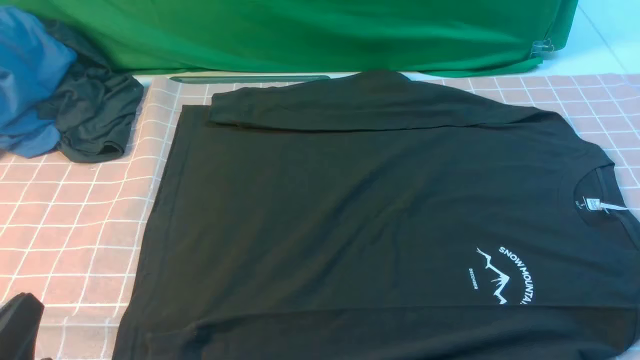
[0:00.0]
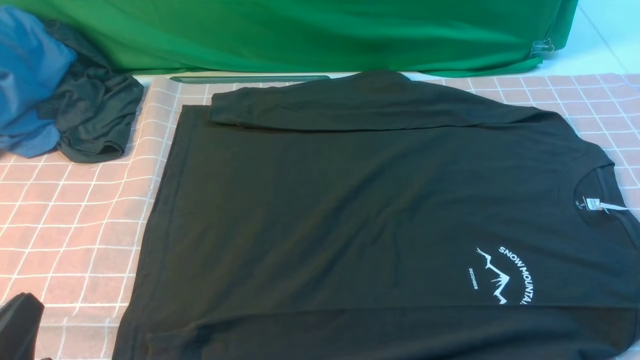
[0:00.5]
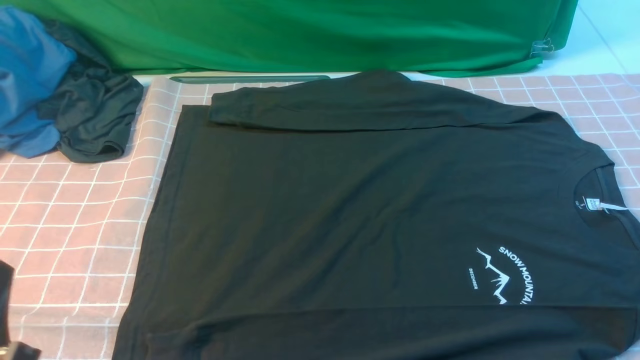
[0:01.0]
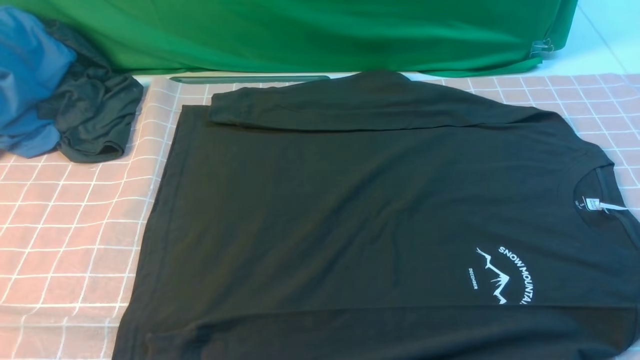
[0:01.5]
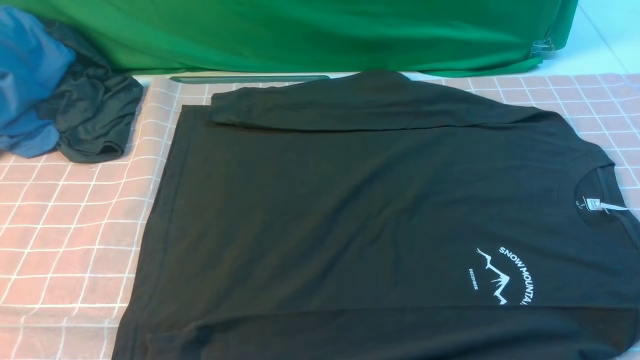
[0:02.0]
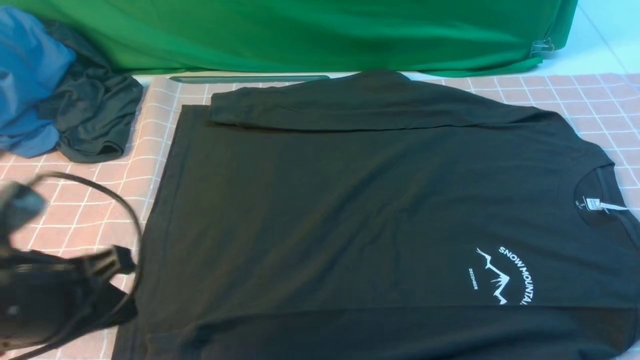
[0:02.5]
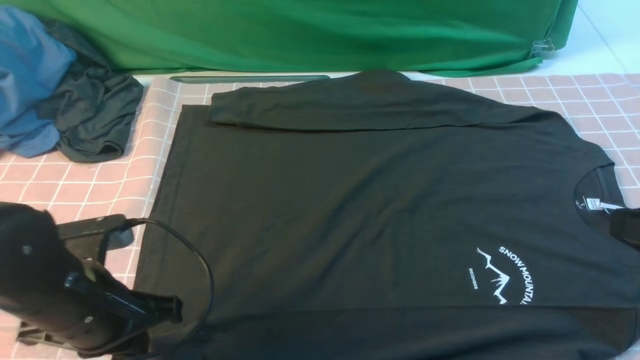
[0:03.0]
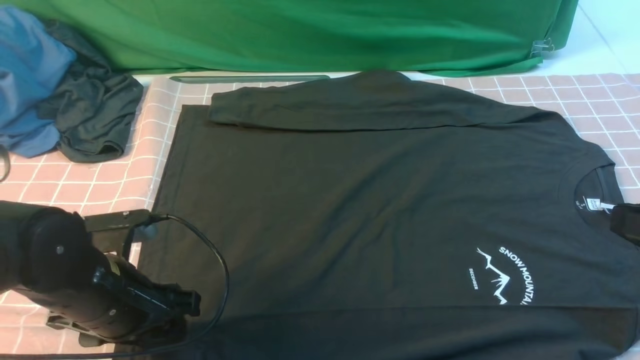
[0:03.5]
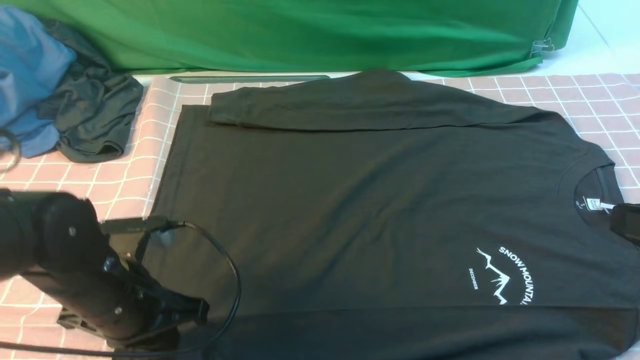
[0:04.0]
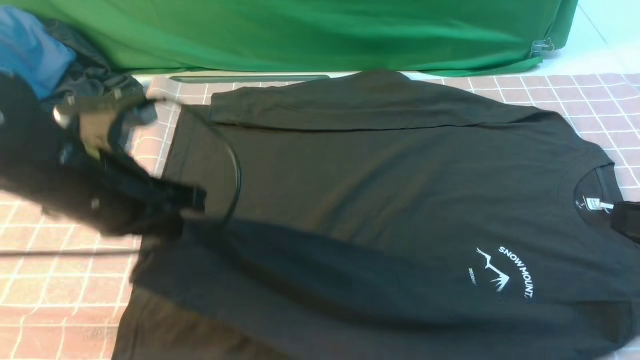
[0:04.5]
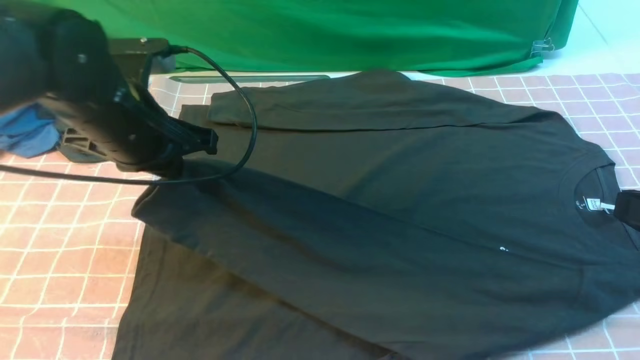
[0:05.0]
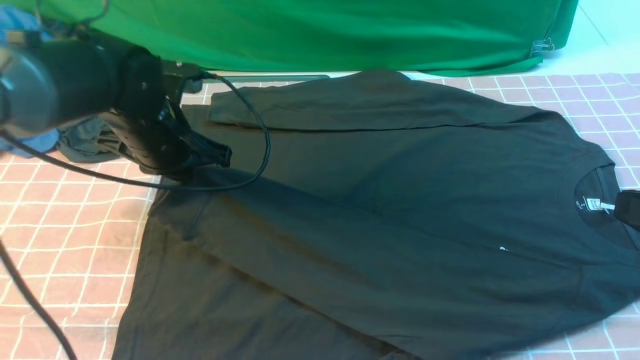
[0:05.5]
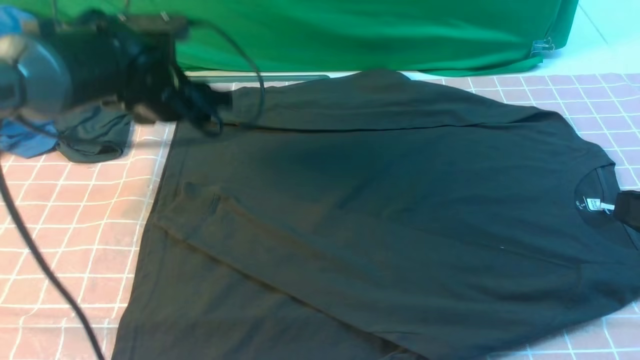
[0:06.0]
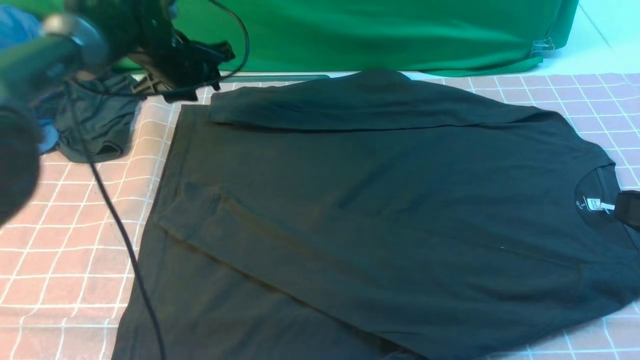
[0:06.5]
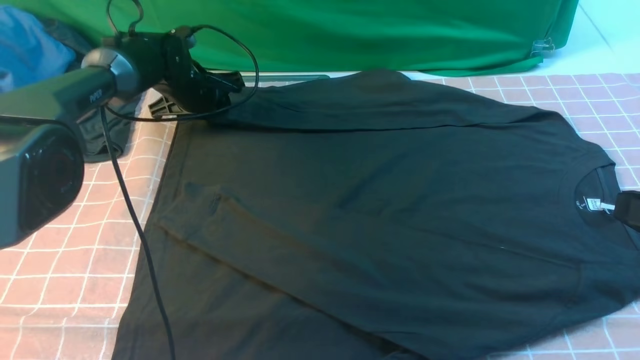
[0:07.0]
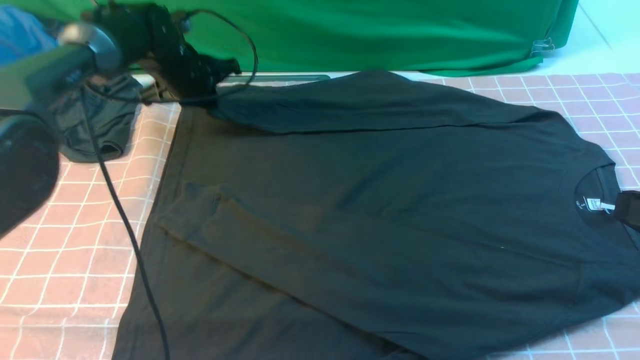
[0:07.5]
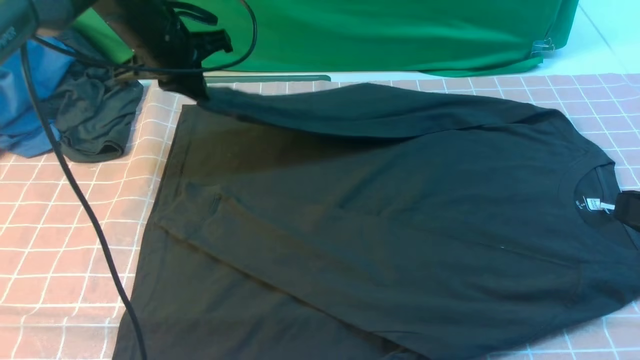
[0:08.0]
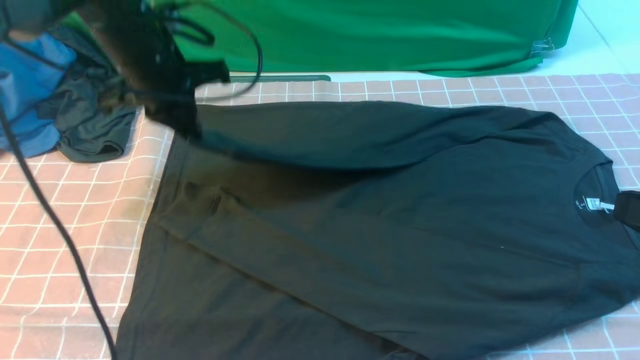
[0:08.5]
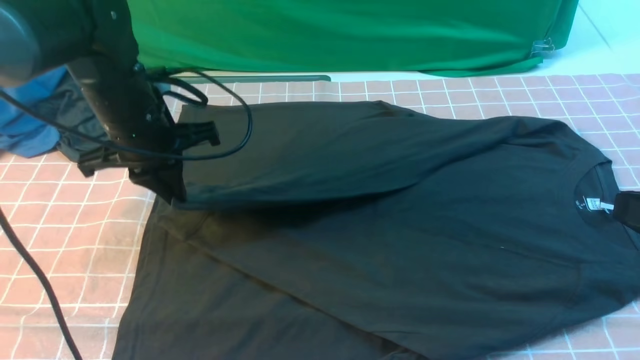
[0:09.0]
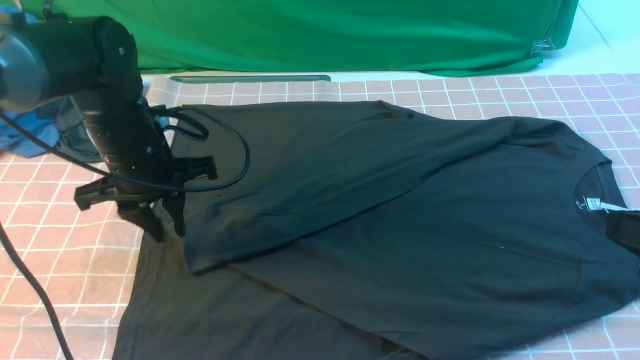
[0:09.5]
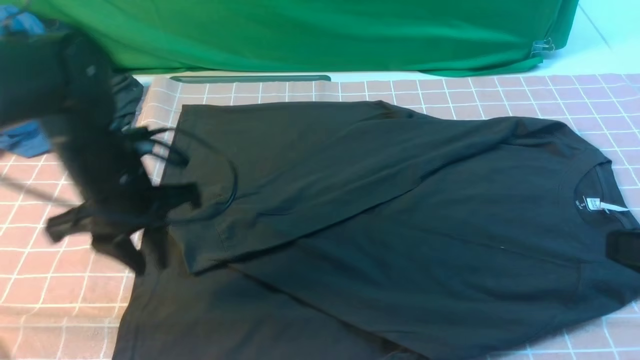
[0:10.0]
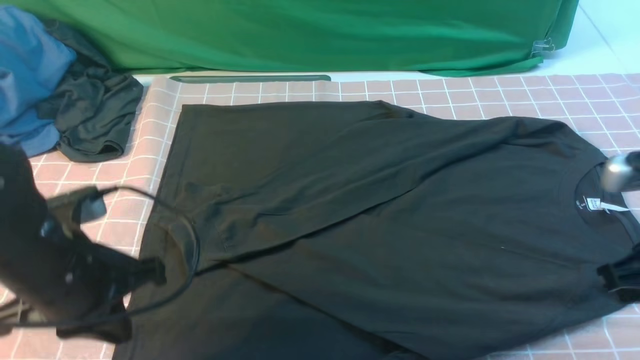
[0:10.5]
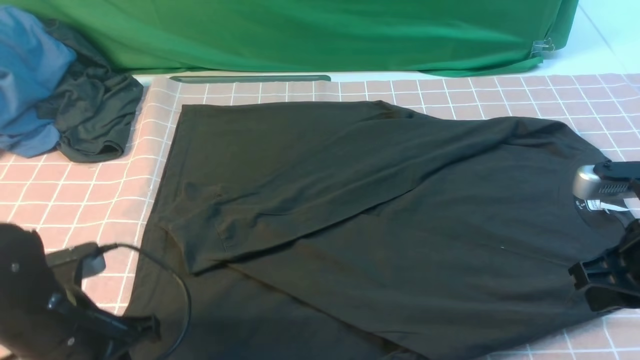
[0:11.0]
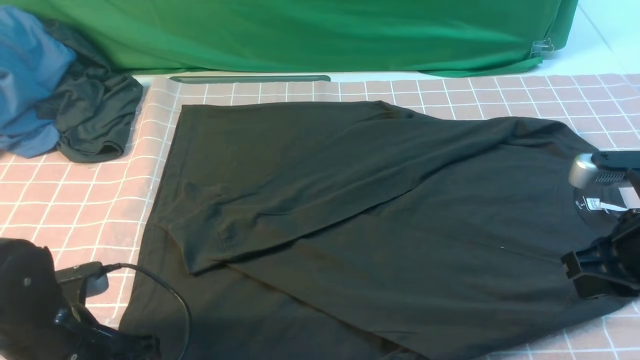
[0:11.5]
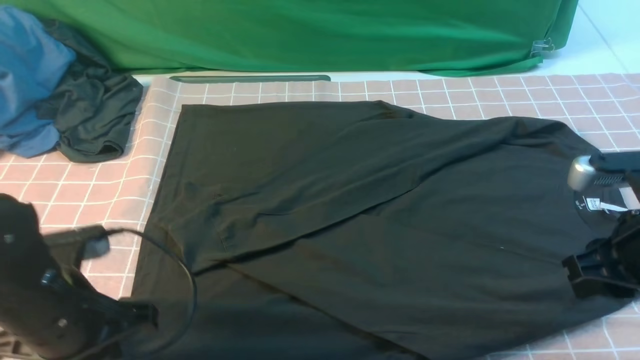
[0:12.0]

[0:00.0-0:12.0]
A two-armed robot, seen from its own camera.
Step, 0:00.0 to 0:03.5: use the left arm to clamp the cuff closest to it.
Step, 0:04.0 to 0:05.5: use the left arm to drag and place the cuff at the centered position on the left edge of the fabric.
Step, 0:06.0 to 0:07.0: use the left arm to clamp the cuff farthest from it.
Step, 0:07.5 to 0:09.0: use the left arm to drag and drop the cuff onto the cuff closest to the left arm.
0:00.0 to 0:02.0: The left gripper goes approximately 10 cm upward.
0:02.0 to 0:04.0: The left gripper goes approximately 20 cm forward and downward, and opens, then closes once more, while the right gripper heads upward and forward, covering about 10 cm.
0:04.0 to 0:06.0: The left gripper is displaced forward by some 20 cm, and opens.
0:06.0 to 0:08.0: The left gripper moves some 10 cm downward and comes back, and closes its fingers.
0:08.0 to 0:10.0: The left gripper goes approximately 15 cm backward, and opens up.
0:10.0 to 0:12.0: The left gripper heads backward, covering about 10 cm, and opens, then closes once more; the right gripper shifts about 10 cm forward and downward, and opens.

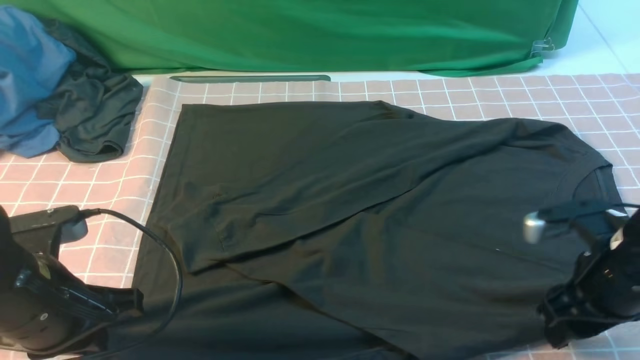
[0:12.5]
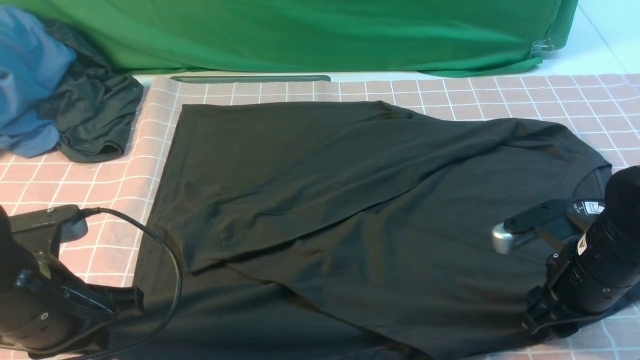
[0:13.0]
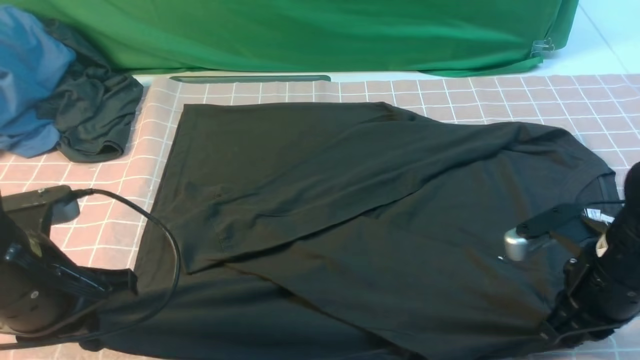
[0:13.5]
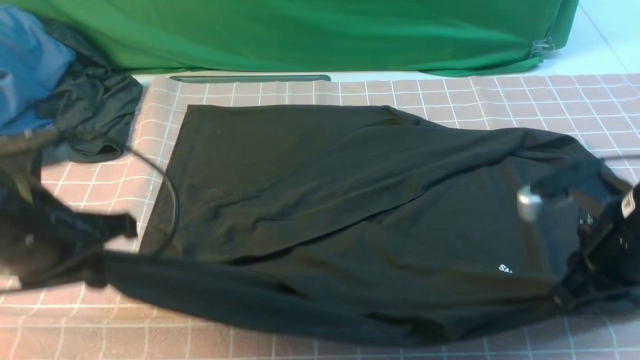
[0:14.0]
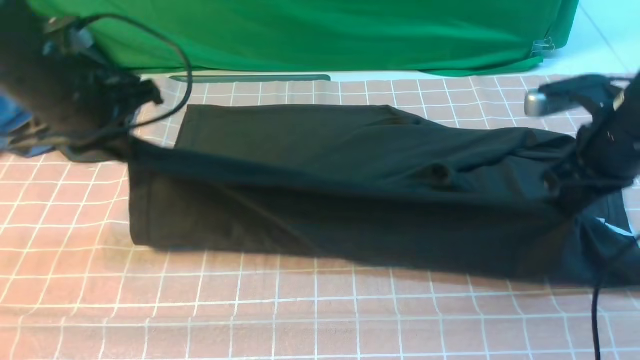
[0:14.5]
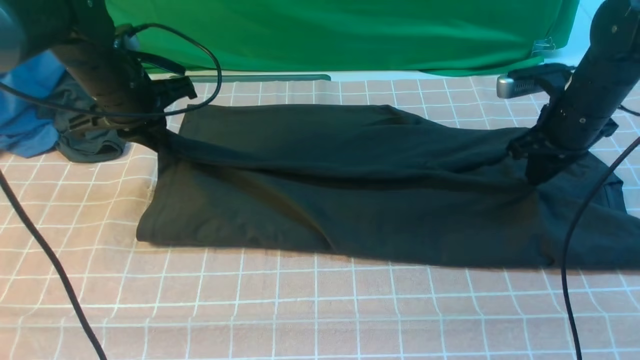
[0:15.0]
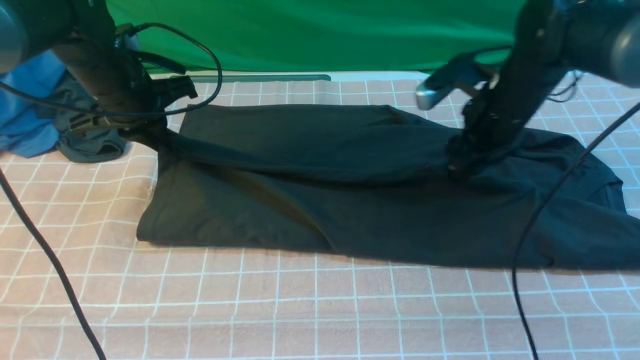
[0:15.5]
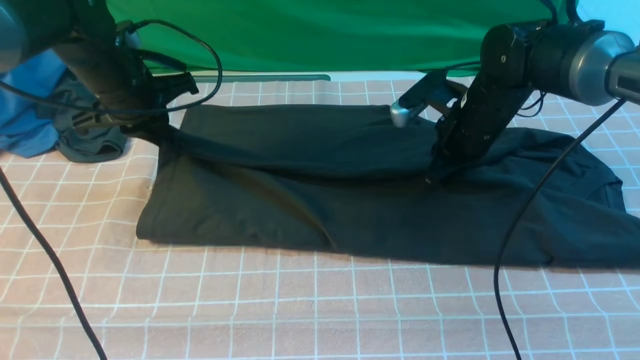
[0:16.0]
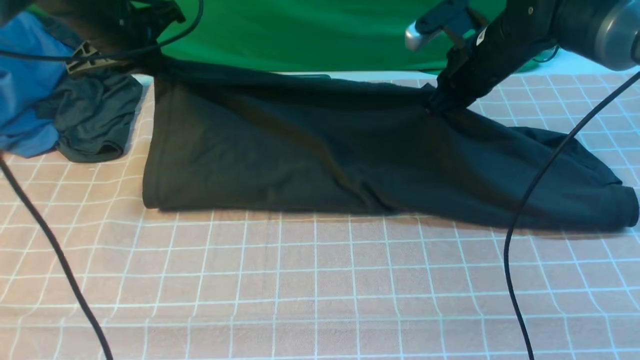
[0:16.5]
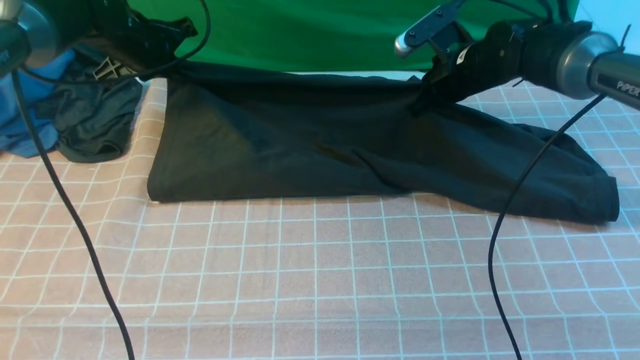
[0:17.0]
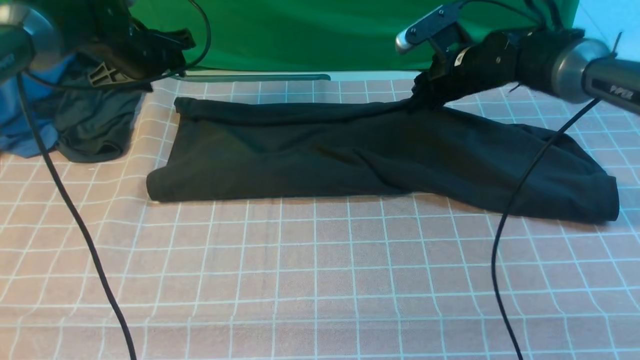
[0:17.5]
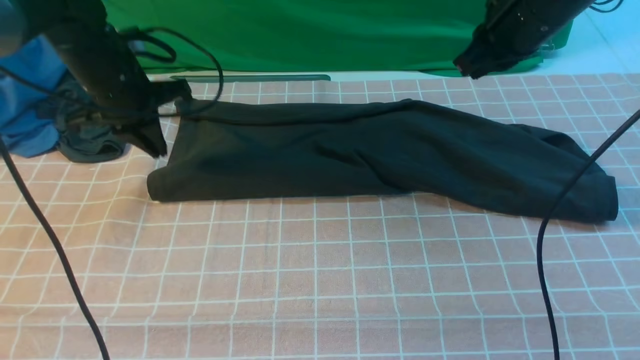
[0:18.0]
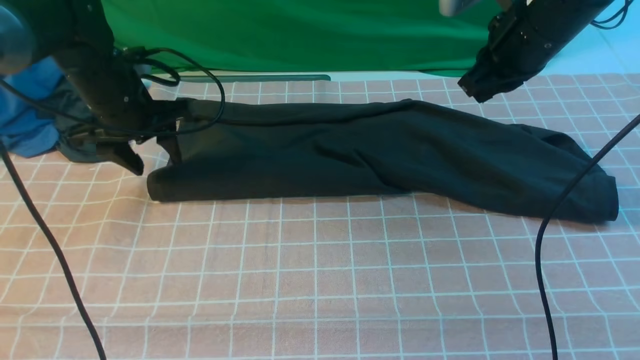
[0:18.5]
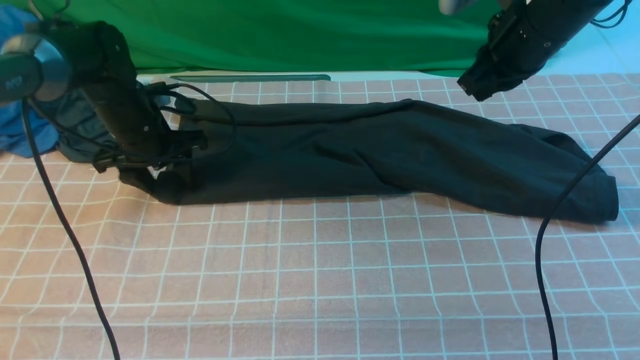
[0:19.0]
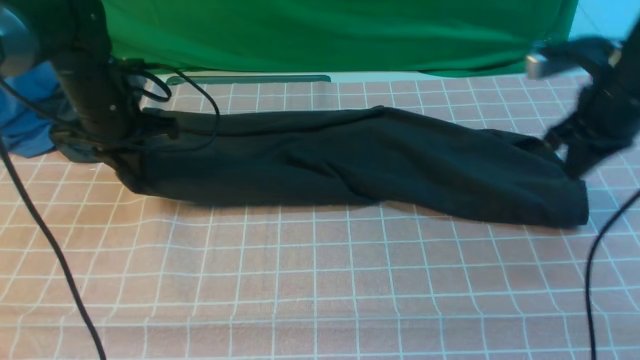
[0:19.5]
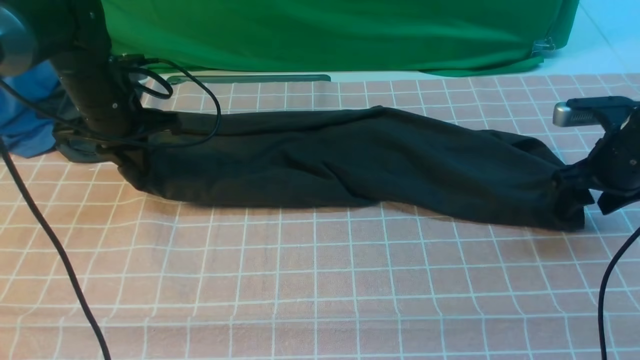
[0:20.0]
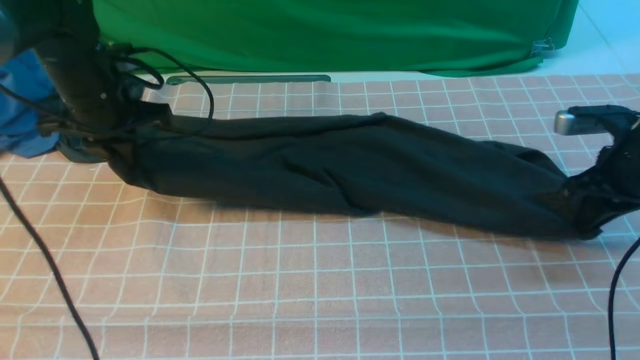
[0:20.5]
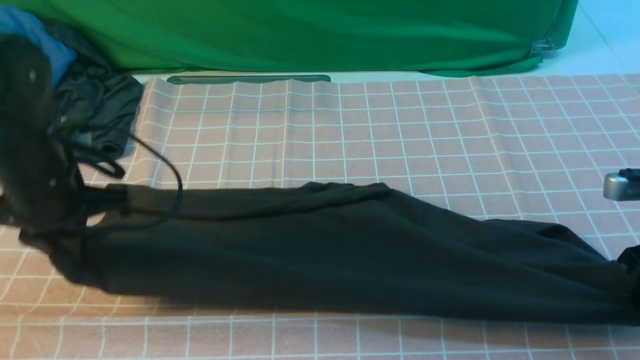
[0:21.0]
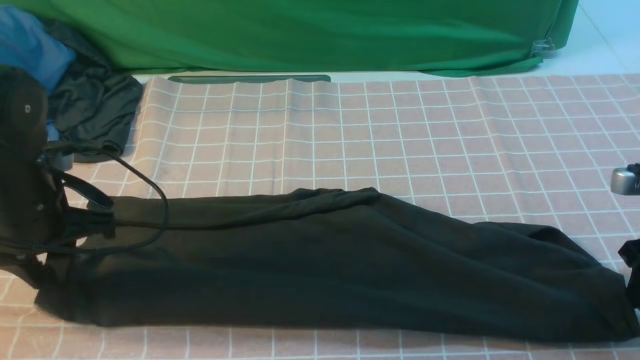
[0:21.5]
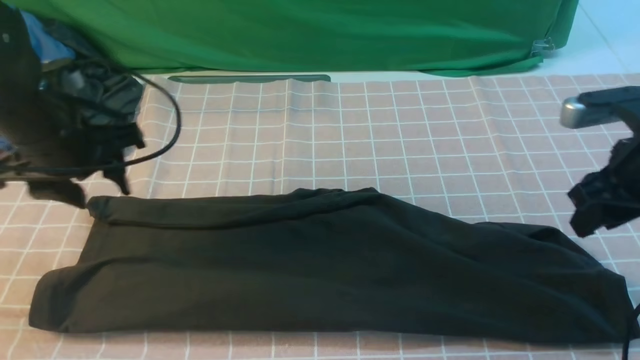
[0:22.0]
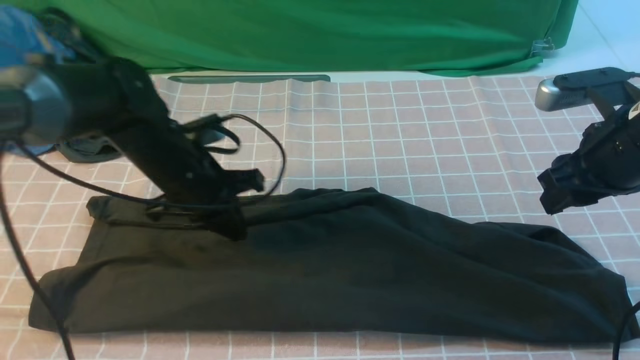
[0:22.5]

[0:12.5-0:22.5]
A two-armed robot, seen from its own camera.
0:12.5 to 0:14.5: Both grippers move forward and upward, approximately 15 cm. The right gripper closes.
0:14.5 to 0:16.5: The right gripper goes about 15 cm forward and to the left, and opens and closes again; the left gripper is displaced forward by approximately 10 cm.
0:16.5 to 0:18.5: The right gripper moves upward and backward, about 10 cm, and opens, then closes again. Meanwhile the left gripper moves downward, roughly 5 cm, and opens.
0:18.5 to 0:20.5: The right gripper moves to the right, downward and backward, approximately 20 cm, and opens, then closes once more, while the left gripper closes up.
0:20.5 to 0:22.5: The left gripper heads to the right and downward, covering about 10 cm, goes backward and returns, roughly 10 cm each way, and opens, then closes again; the right gripper shifts some 10 cm to the left and upward, and opens.
